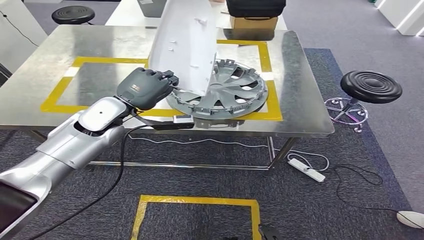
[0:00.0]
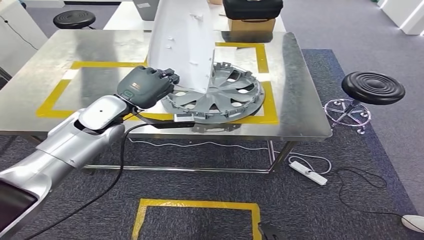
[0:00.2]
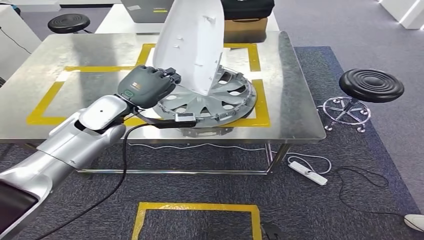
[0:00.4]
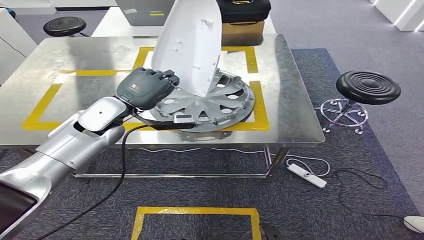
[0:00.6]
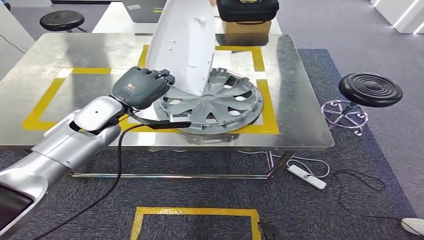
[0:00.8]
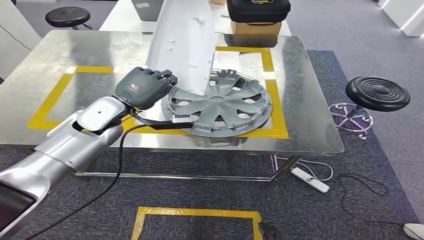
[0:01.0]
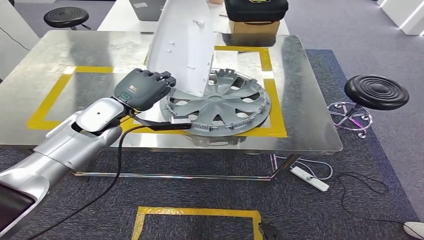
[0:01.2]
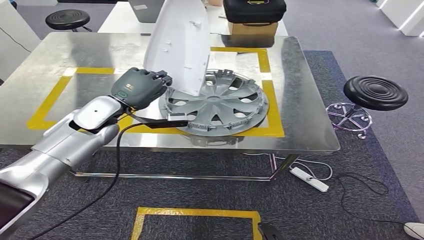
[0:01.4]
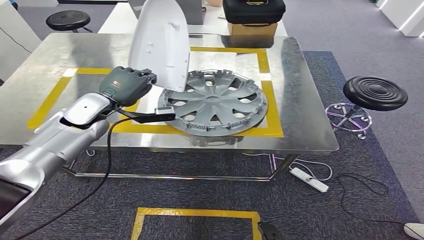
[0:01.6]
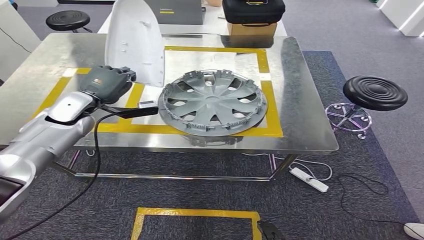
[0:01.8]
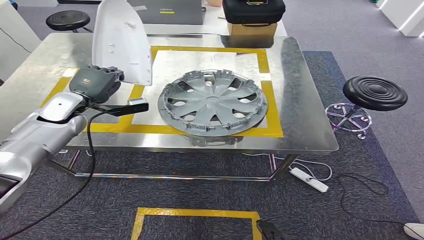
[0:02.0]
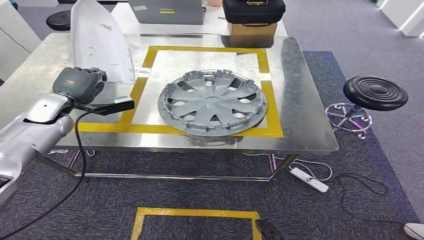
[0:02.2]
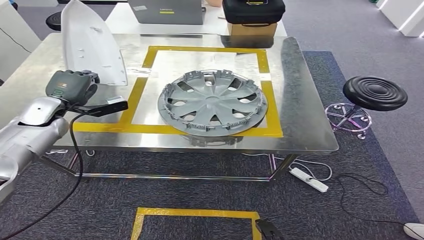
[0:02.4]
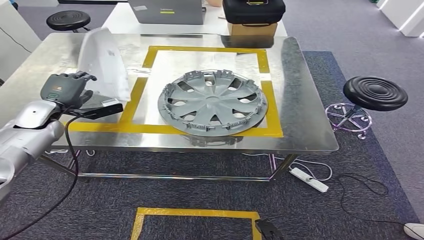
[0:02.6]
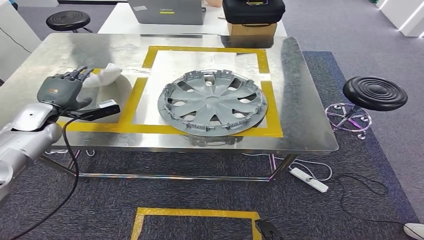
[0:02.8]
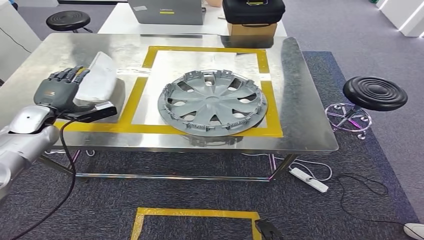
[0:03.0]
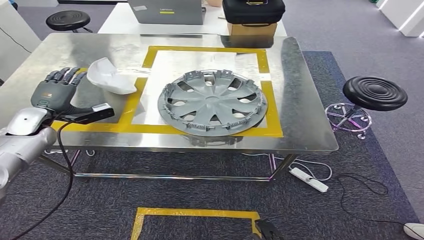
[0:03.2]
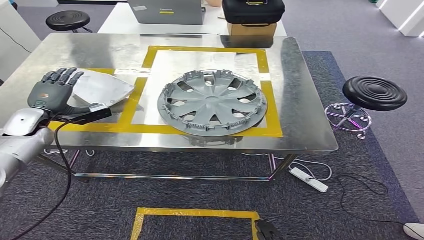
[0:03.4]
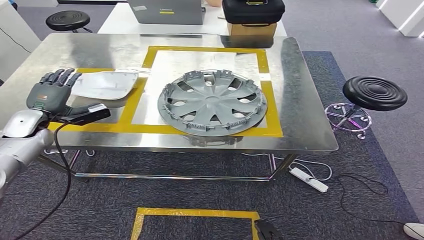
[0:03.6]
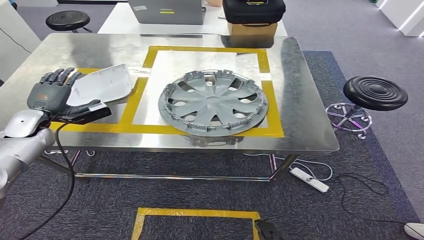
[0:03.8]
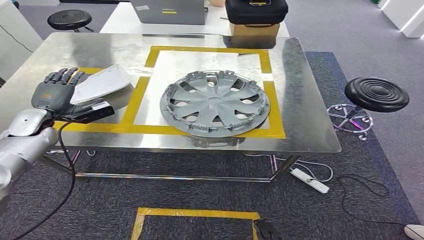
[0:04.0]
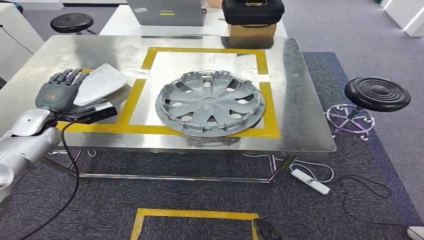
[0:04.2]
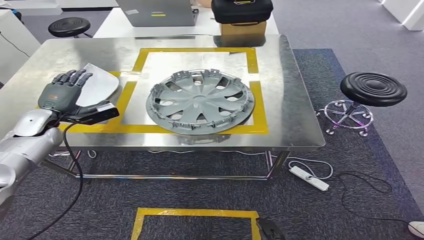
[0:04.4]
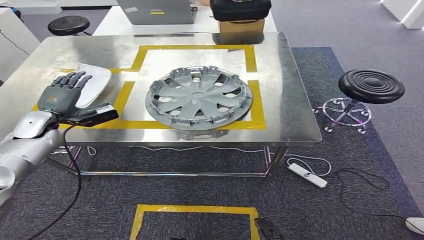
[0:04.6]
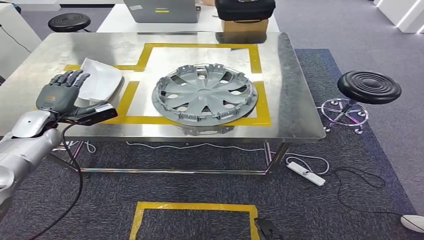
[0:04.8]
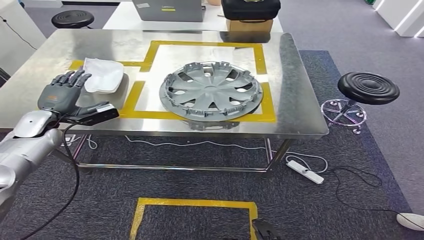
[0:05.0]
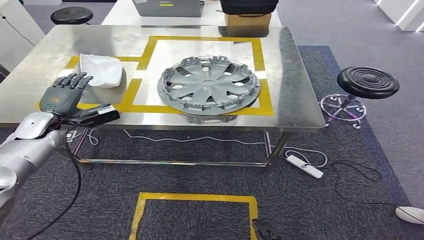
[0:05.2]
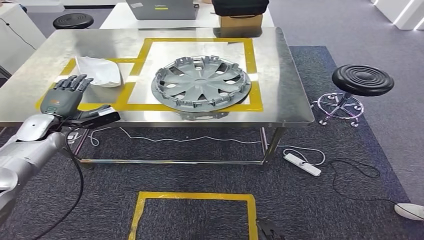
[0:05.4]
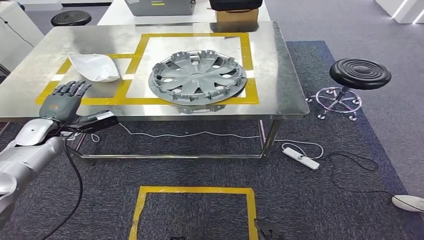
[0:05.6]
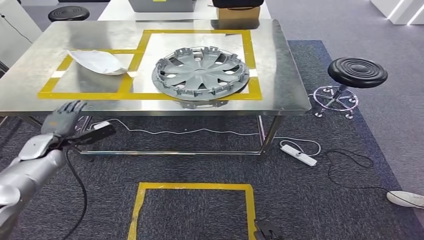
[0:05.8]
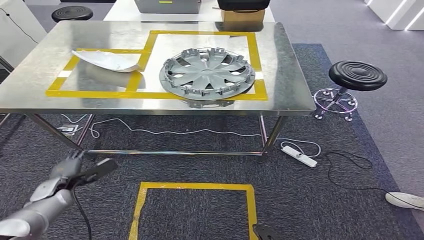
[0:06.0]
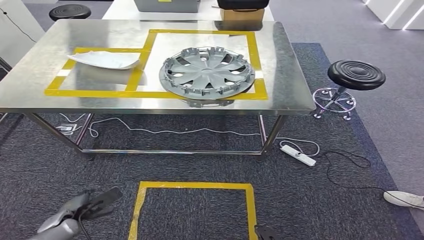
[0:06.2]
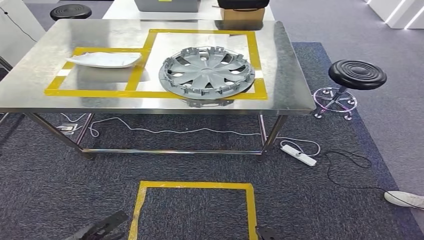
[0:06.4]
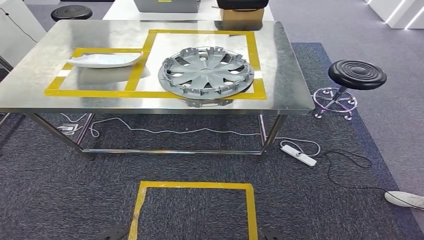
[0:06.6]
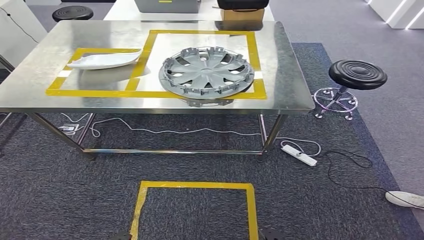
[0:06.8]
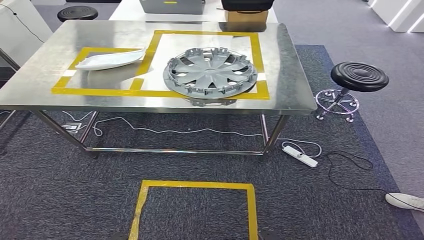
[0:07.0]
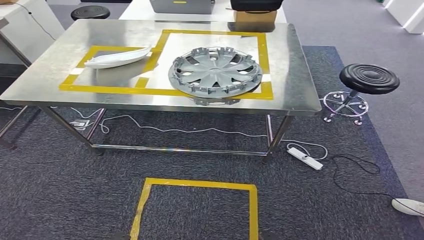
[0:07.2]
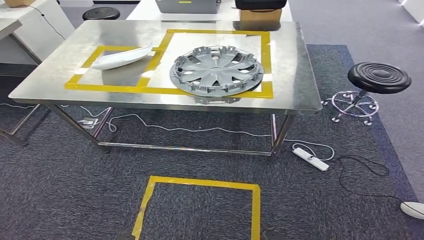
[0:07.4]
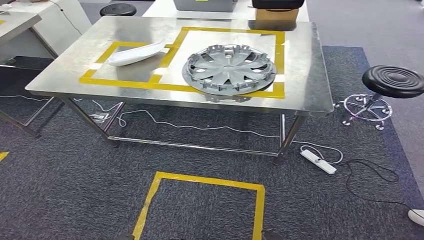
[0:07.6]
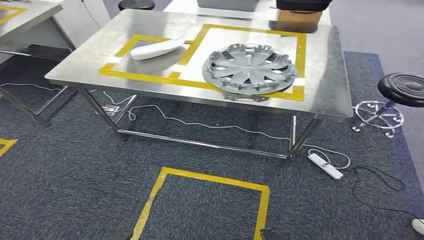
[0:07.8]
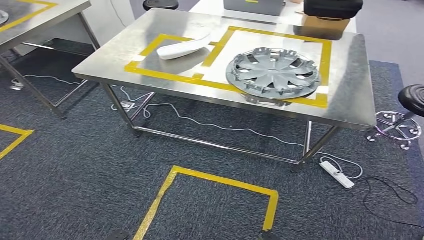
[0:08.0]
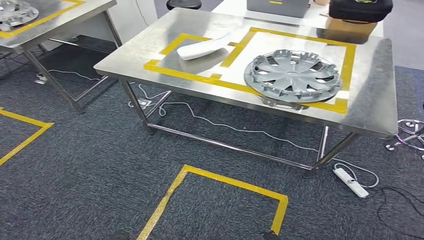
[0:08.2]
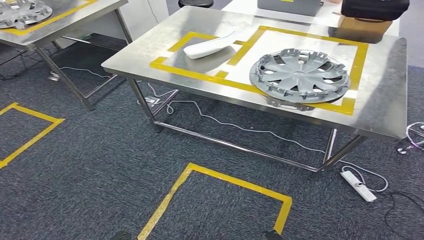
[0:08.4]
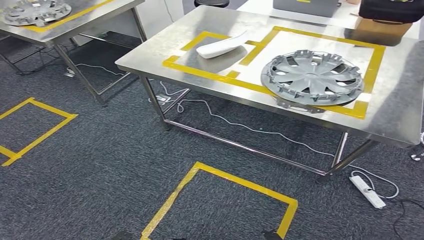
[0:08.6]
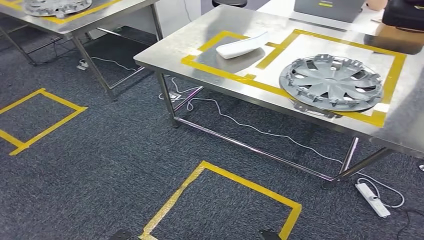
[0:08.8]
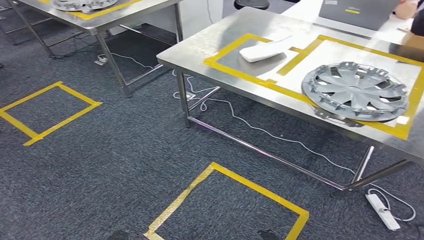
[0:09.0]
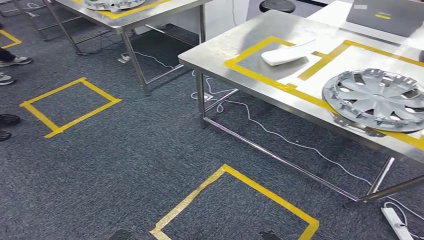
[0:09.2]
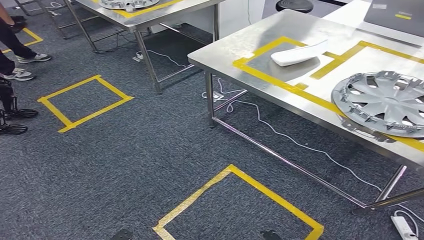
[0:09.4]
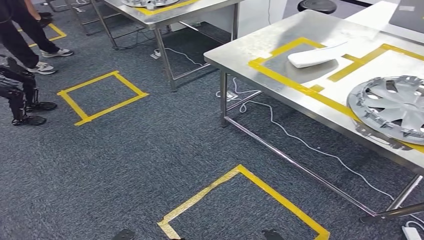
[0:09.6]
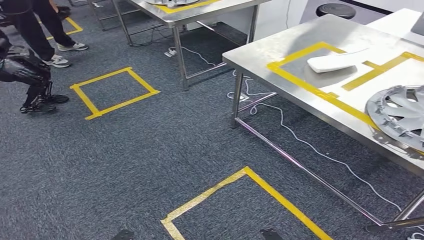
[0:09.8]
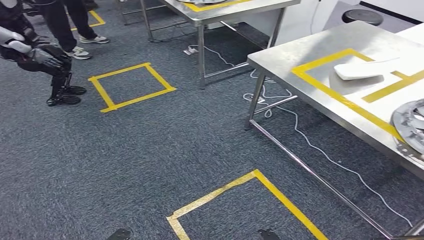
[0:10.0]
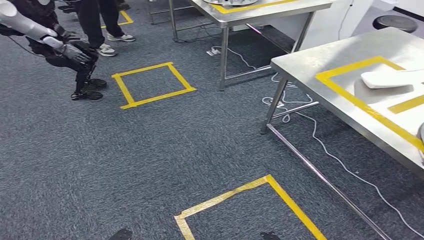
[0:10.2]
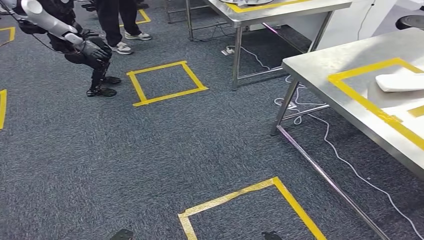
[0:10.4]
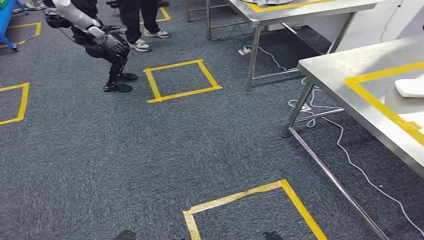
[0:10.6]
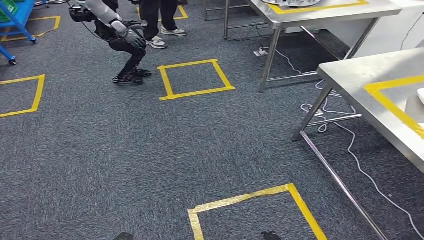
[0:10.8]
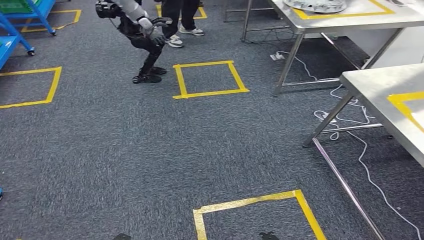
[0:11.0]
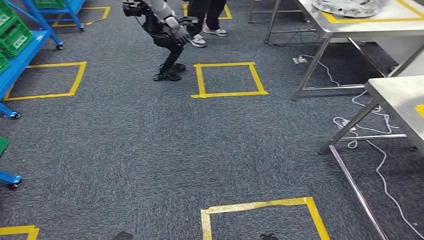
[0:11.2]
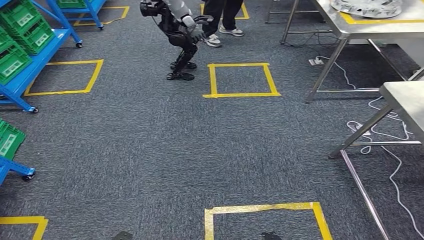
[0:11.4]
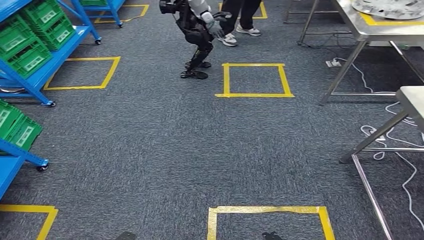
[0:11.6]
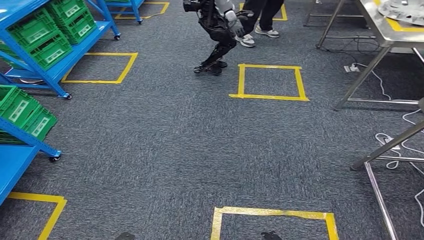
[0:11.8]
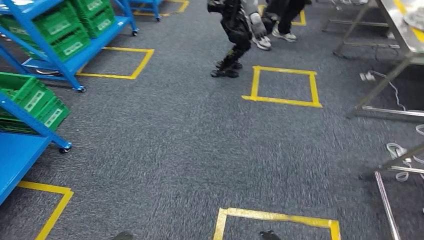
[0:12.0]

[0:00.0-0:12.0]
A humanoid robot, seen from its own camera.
Step, 0:01.8 to 0:05.6: Insert the small component into the corresponding slot on the workbench.
0:01.6 to 0:03.0: The left hand travels to the left by roughly 15 cm.

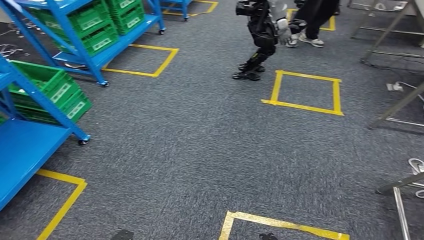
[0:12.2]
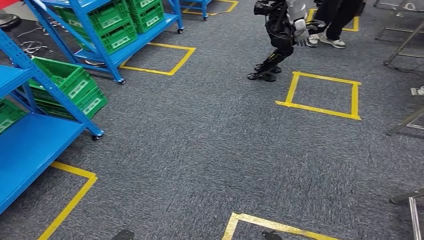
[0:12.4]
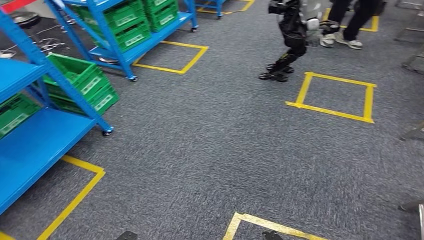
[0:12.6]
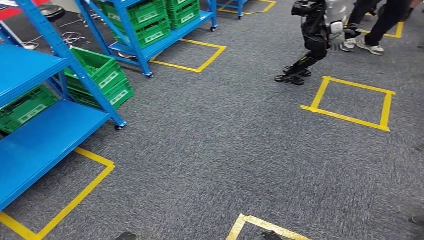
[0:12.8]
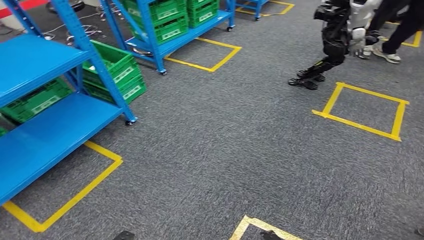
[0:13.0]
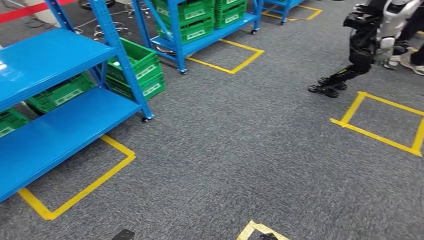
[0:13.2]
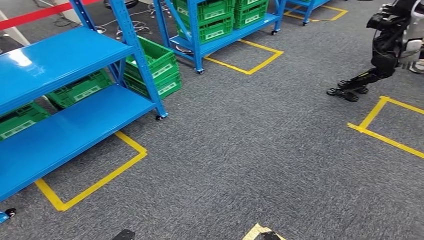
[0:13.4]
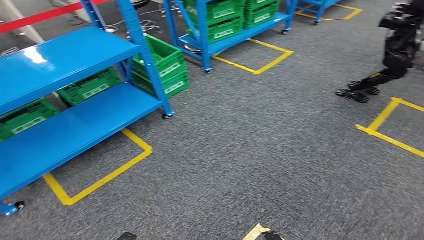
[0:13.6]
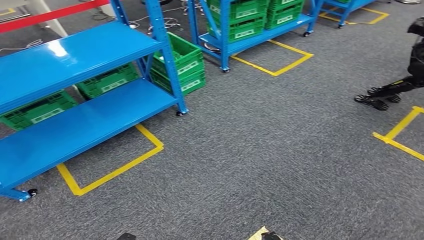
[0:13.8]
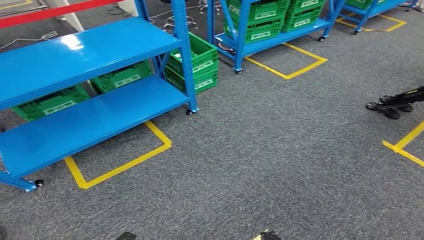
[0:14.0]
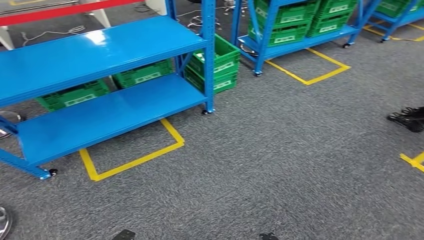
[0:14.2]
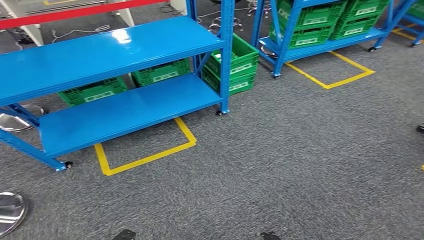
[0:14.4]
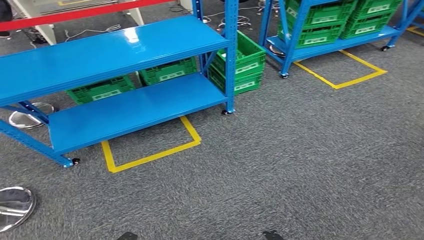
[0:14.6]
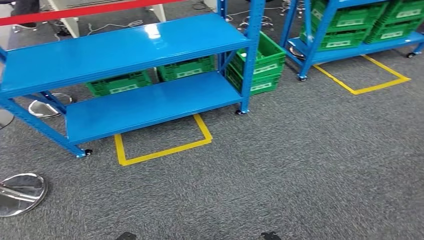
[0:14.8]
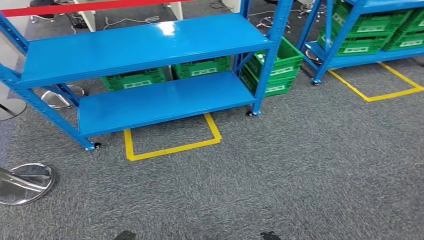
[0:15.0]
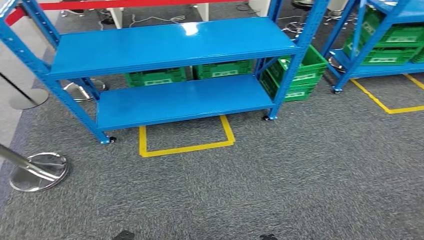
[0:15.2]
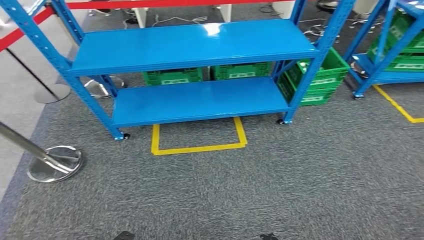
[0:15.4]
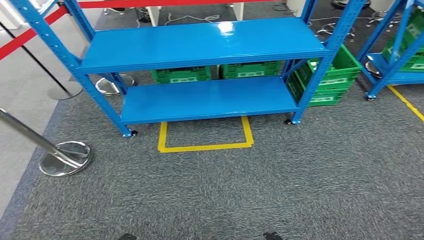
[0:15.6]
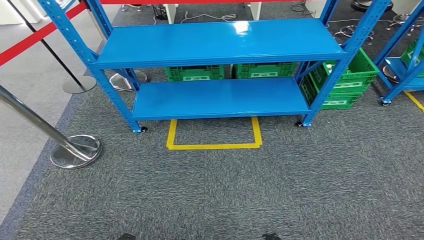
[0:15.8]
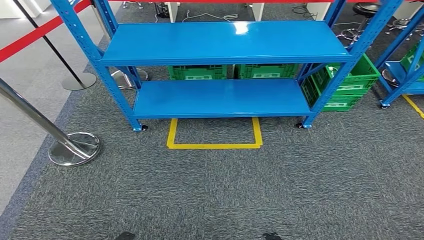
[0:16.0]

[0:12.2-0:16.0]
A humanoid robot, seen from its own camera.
Step, 0:12.2 to 0:16.0: Return to the initial position at the workbench.
